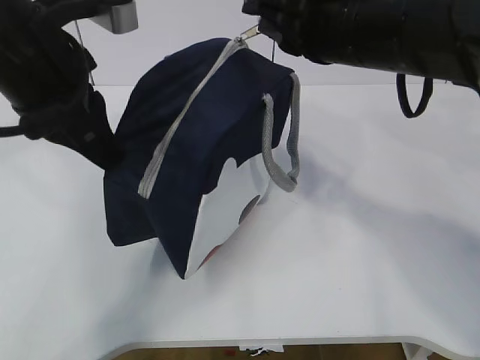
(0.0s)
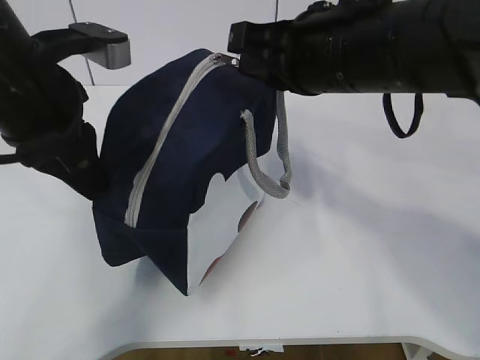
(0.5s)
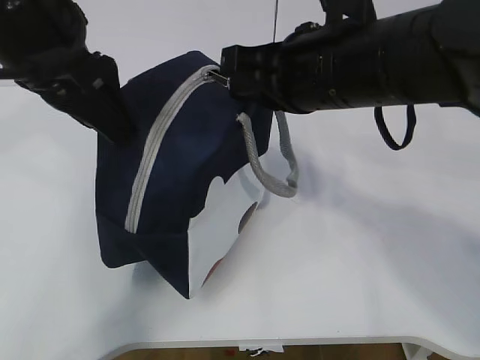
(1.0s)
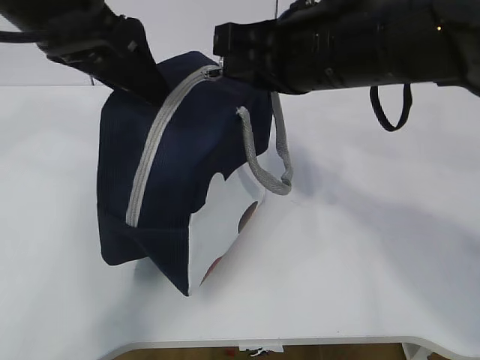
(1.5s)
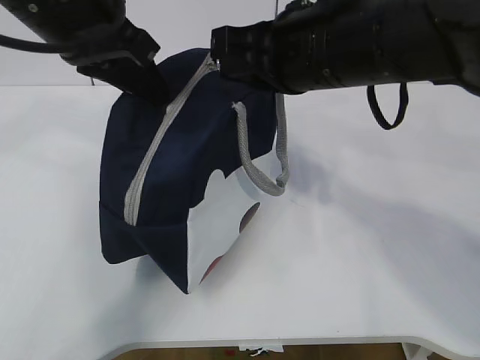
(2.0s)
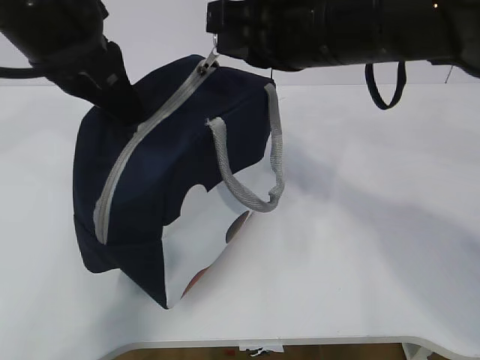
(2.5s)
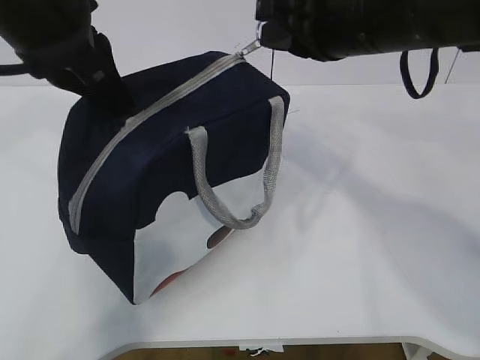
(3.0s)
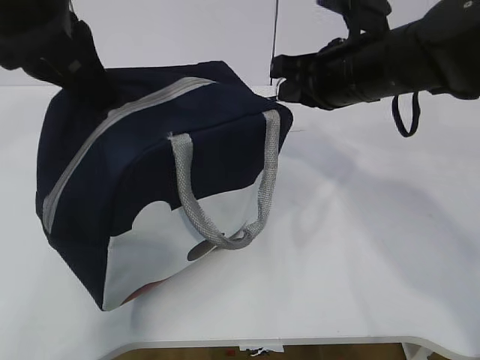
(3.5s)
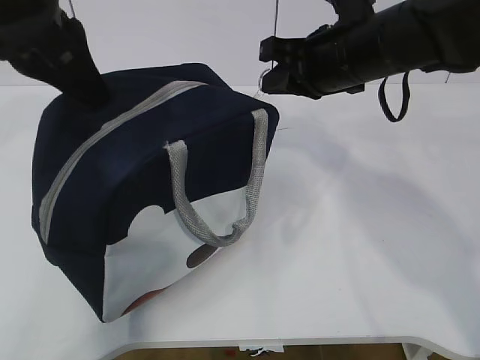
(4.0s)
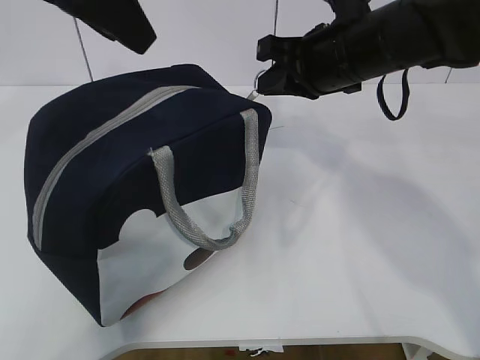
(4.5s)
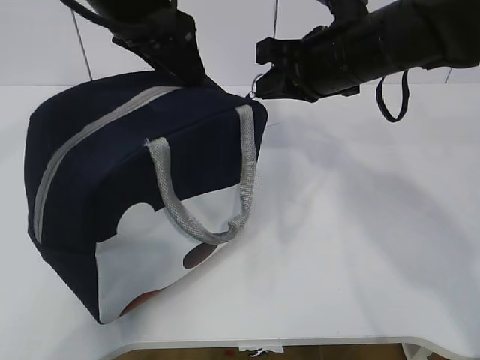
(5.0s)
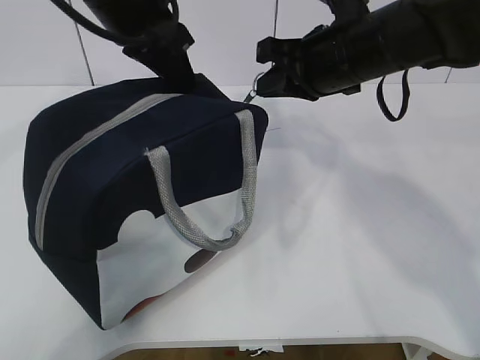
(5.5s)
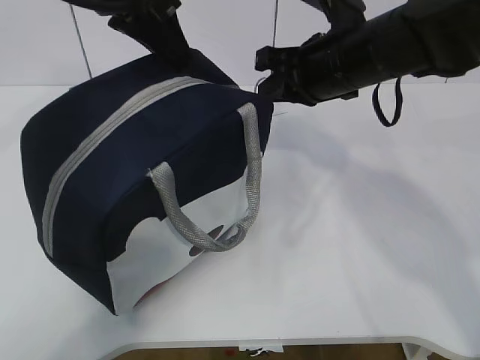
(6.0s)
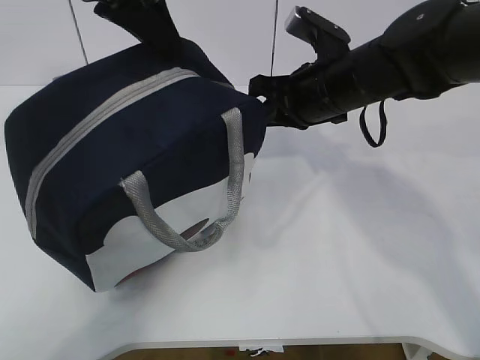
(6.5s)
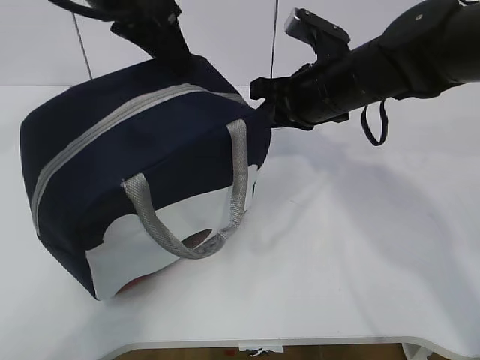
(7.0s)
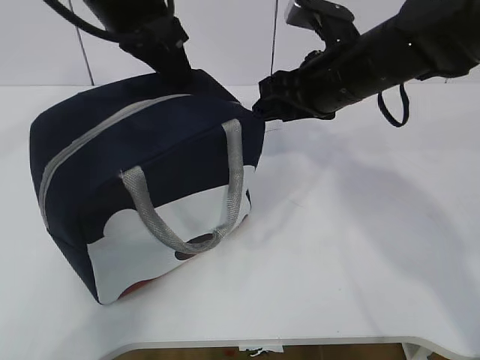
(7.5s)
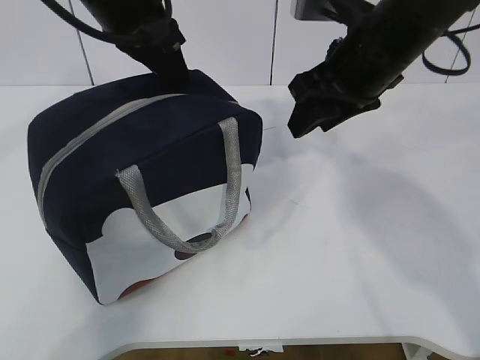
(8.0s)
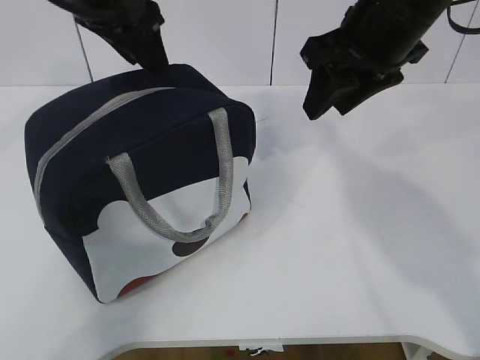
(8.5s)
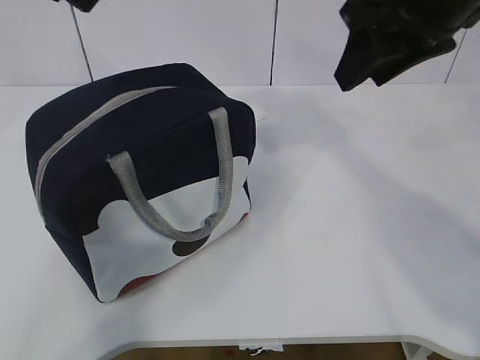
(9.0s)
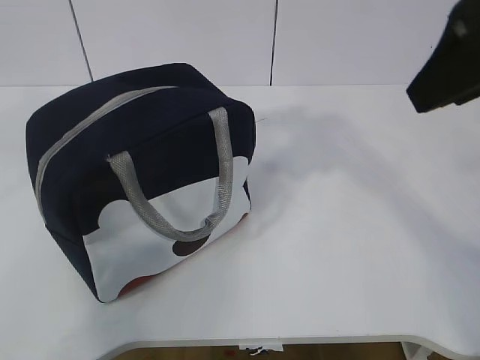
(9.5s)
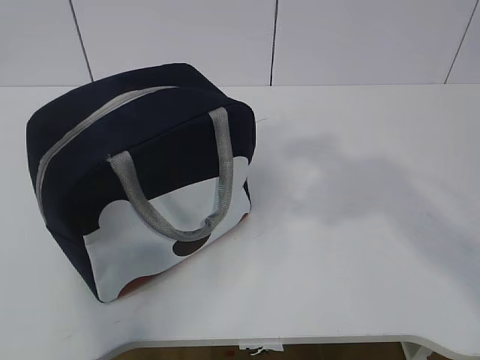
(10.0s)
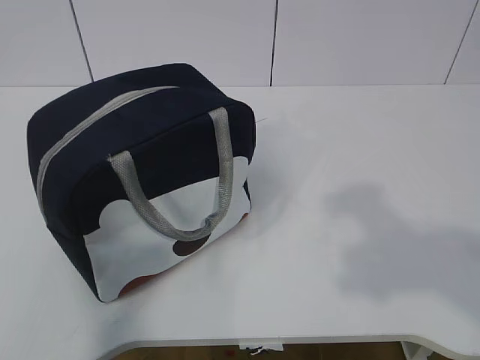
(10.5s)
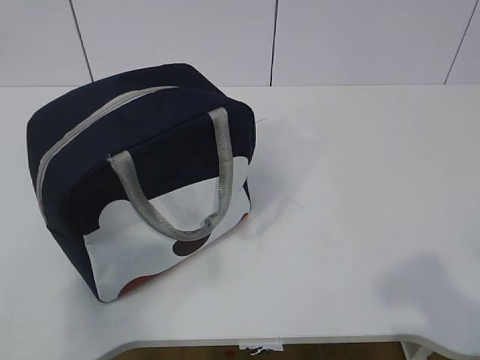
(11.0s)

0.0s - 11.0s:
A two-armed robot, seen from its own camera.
0.0s - 2.0s: The left gripper opens, then closes again.
2.0s - 3.5s: The right gripper shifts about 10 cm forward, to the right and downward.
3.5s - 5.5s: The left gripper goes roughly 10 cm forward and to the right, and opens, then closes once more.
5.5s - 7.5s: The right gripper opens up.
7.5s - 9.0s: The left gripper heads upward, backward and to the left, covering roughly 10 cm, and opens up; the right gripper moves upward and backward, some 15 cm.
9.0s - 11.0s: The left gripper travels backward, to the left and downward by some 35 cm, while the right gripper moves backward, some 30 cm.

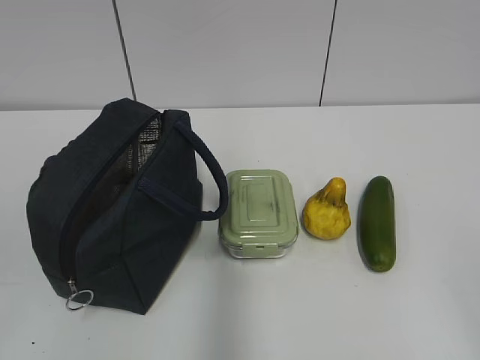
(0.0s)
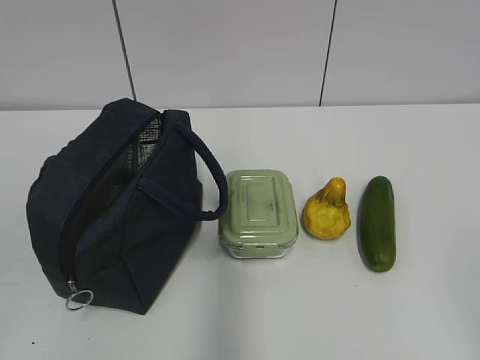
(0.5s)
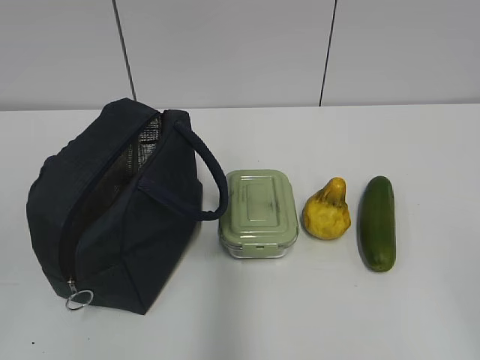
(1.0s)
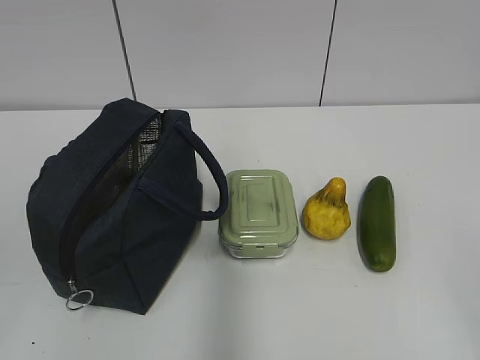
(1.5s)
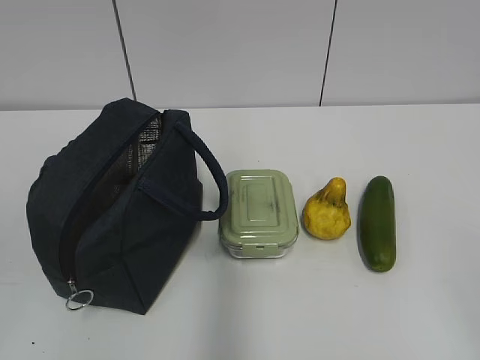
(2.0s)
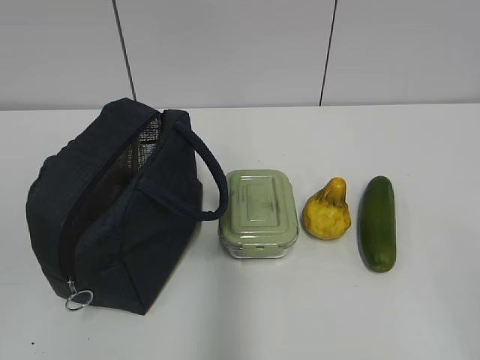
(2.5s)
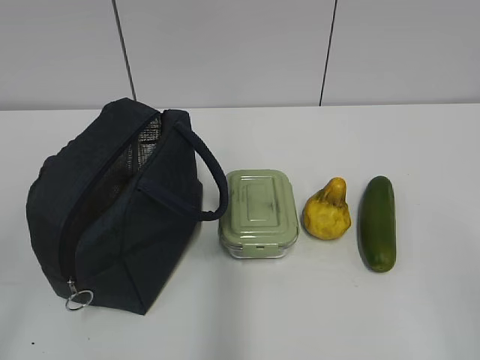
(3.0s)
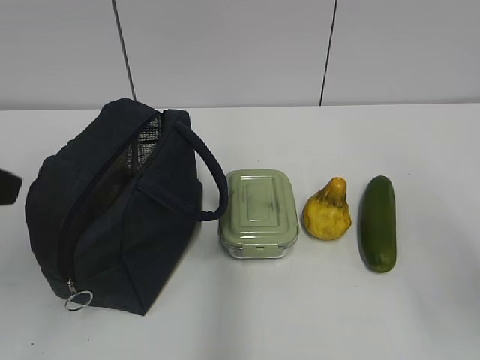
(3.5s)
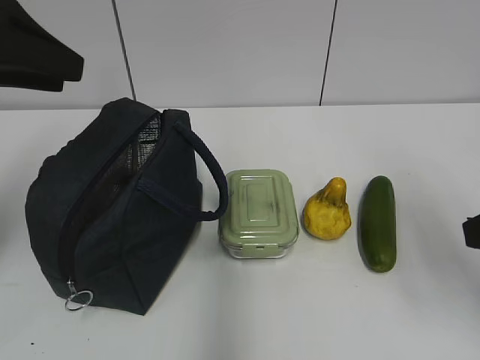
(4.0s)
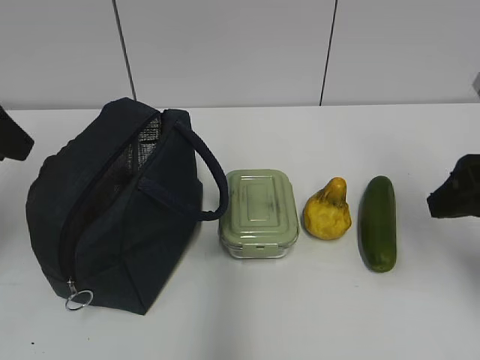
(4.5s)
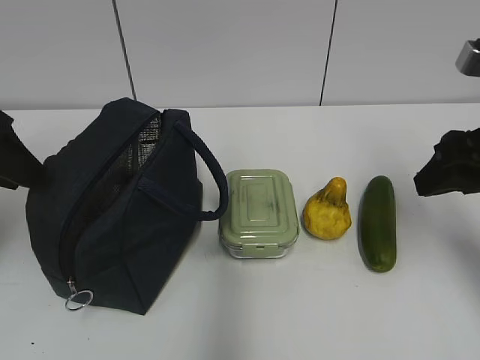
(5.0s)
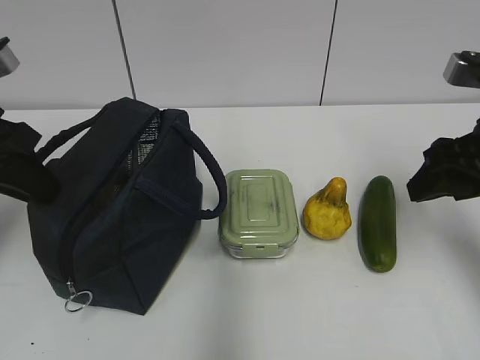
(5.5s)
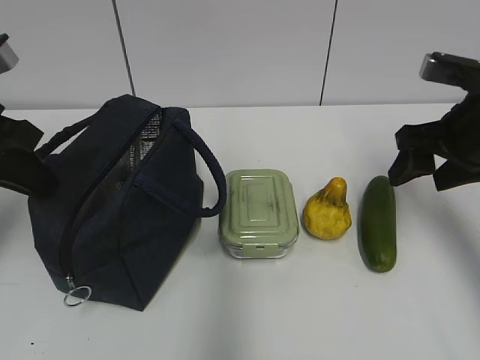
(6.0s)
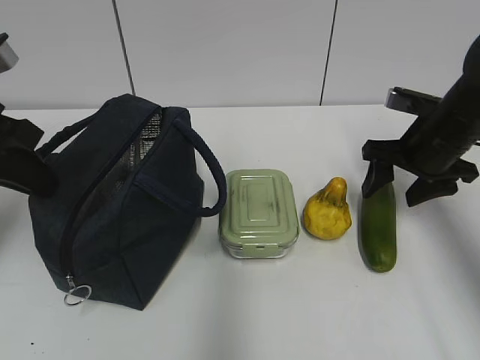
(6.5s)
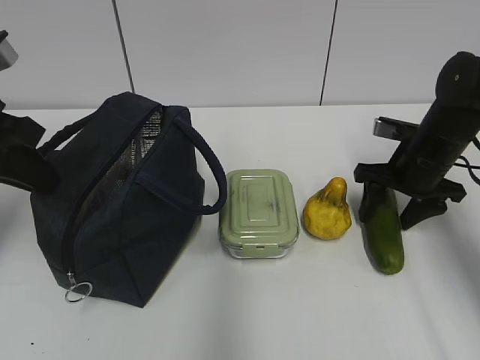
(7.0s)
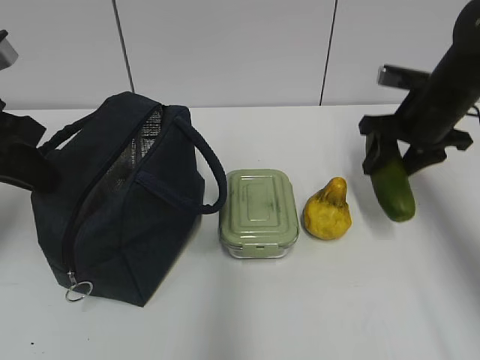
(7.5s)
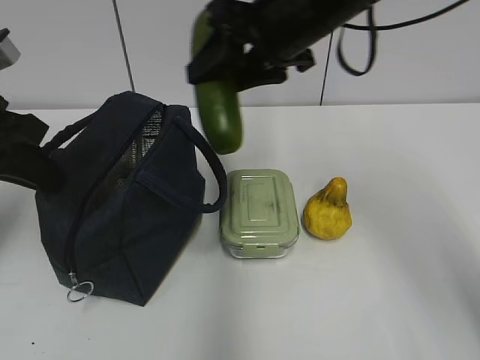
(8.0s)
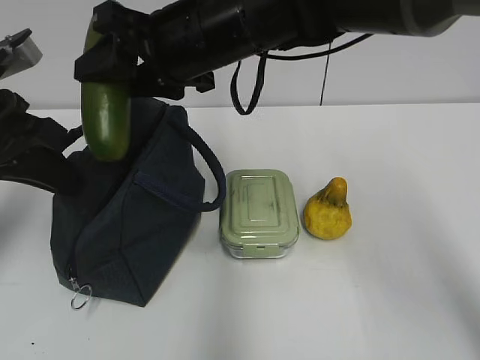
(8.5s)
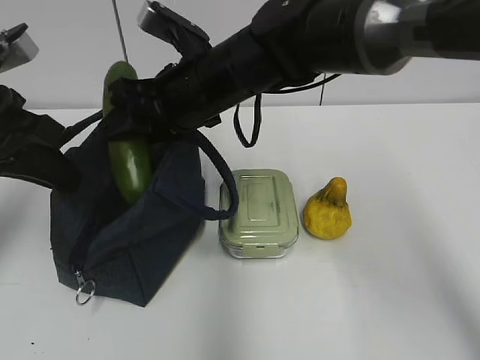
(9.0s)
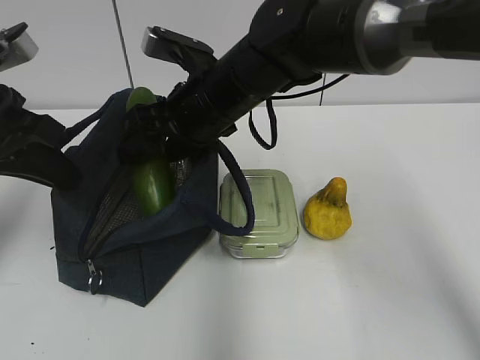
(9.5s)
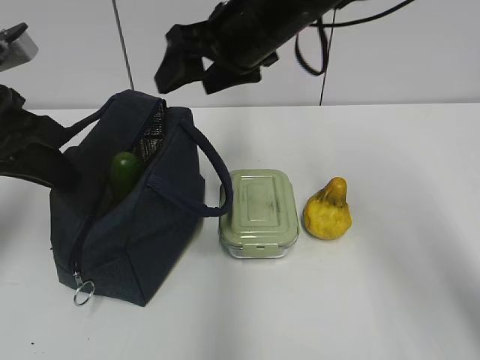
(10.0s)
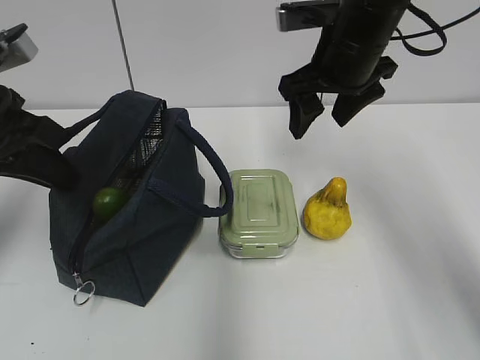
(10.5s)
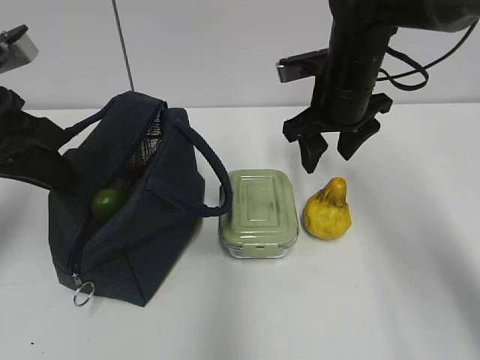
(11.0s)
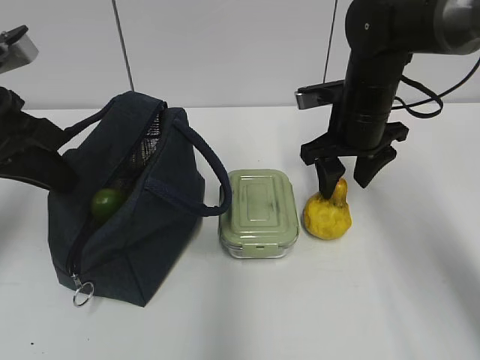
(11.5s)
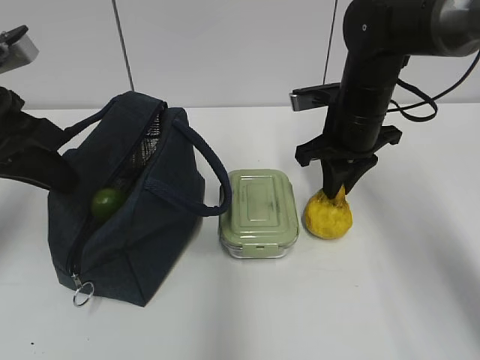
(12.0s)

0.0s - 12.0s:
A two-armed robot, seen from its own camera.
2.0s - 4.0s: Both grippers travel together forward, approximately 20 cm.
4.0s - 6.0s: The left gripper is displaced downward by roughly 10 cm, and closes its fingers. Meanwhile the right gripper moves forward, some 15 cm.
6.0s - 8.0s: The right gripper is displaced to the left and upward by about 20 cm.
8.0s - 10.0s: The right gripper reaches some 10 cm to the left, then returns.
10.0s - 12.0s: The right gripper shifts some 15 cm downward and to the right, and closes up.

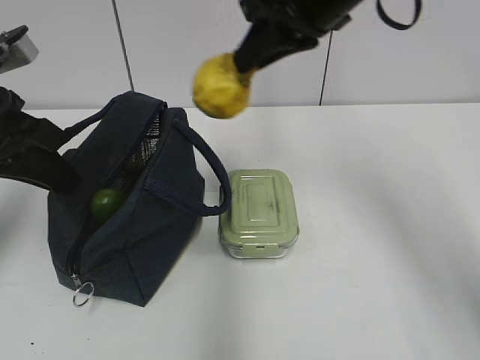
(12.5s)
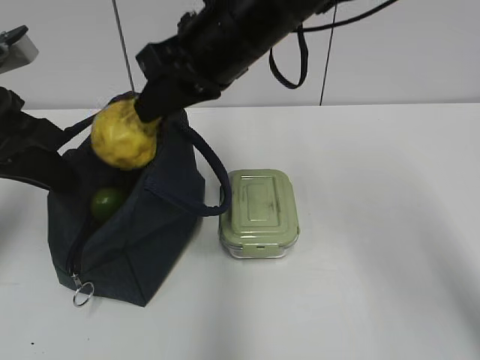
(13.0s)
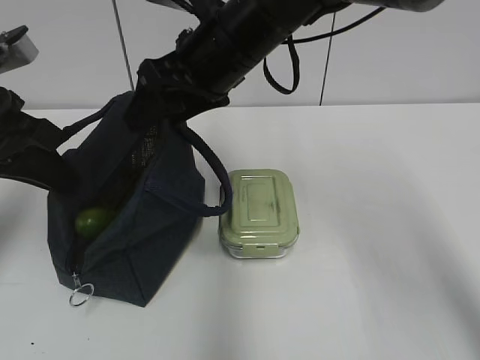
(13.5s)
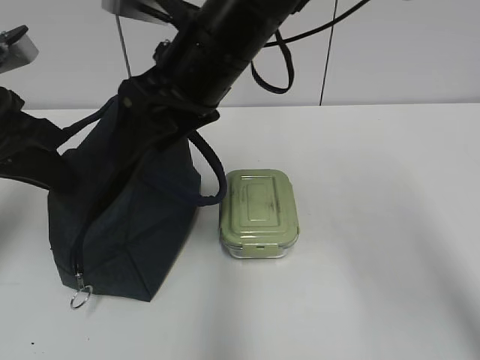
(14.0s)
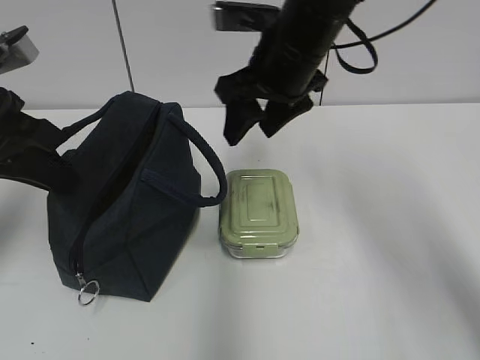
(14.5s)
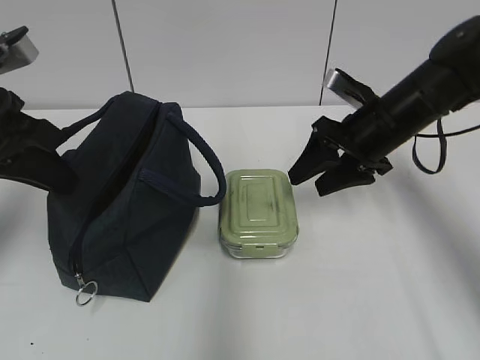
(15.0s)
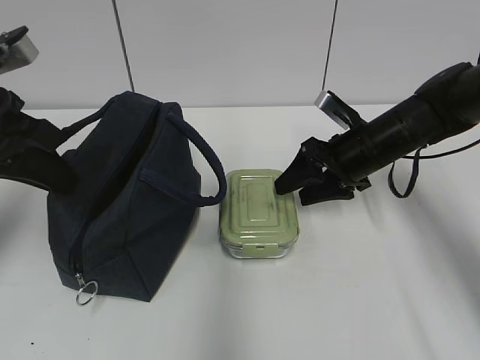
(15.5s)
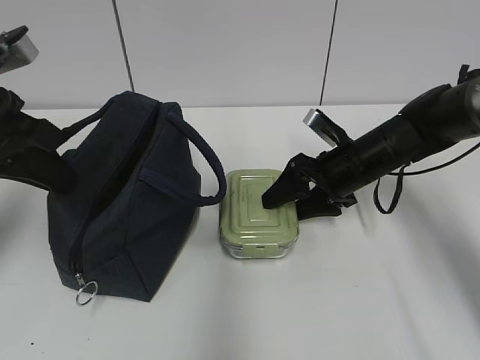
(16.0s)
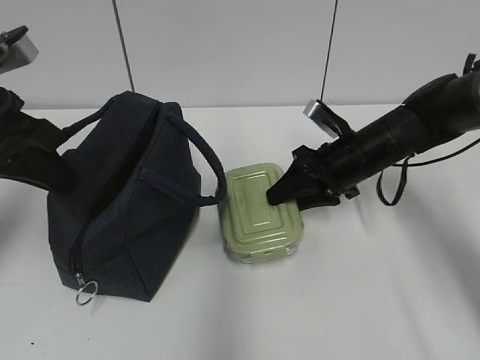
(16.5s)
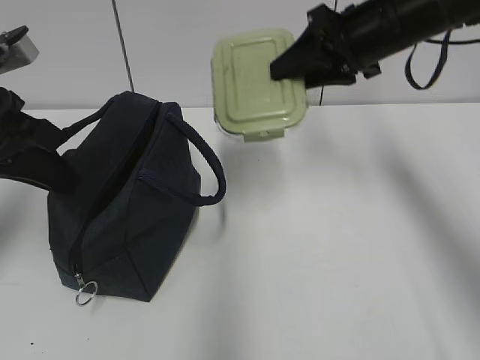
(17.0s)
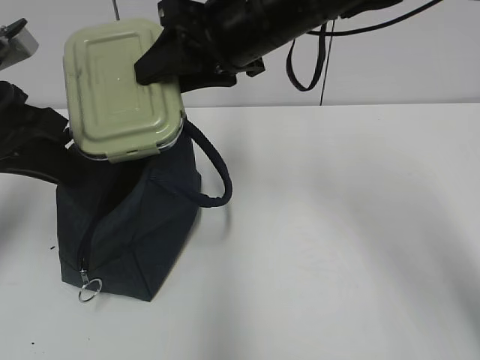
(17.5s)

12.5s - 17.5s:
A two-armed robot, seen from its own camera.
12.5s - 15.0s: The right gripper is displaced downward and to the right by roughly 20 cm, and opens up.
15.0s - 17.5s: The right gripper goes about 20 cm to the left and upward.
